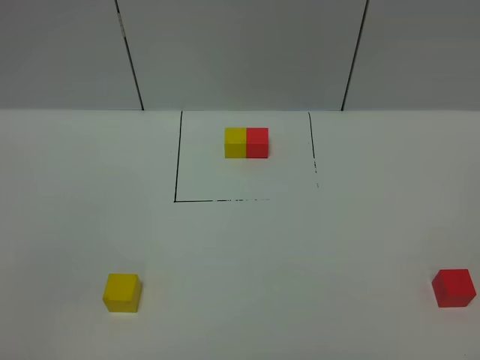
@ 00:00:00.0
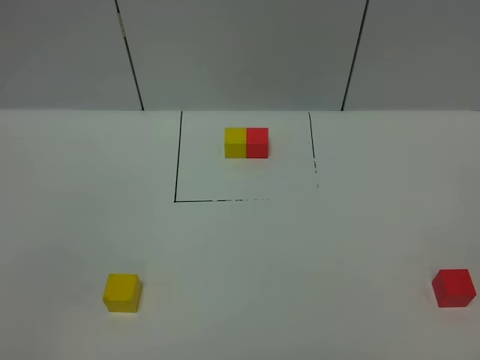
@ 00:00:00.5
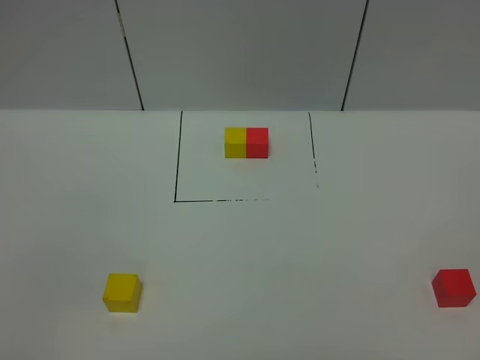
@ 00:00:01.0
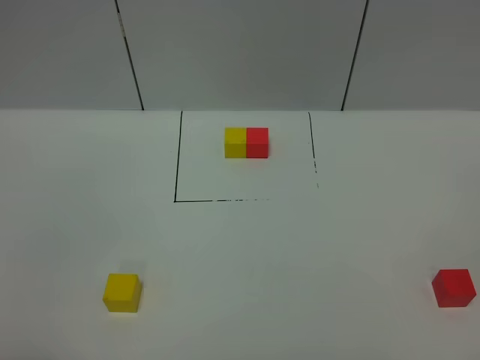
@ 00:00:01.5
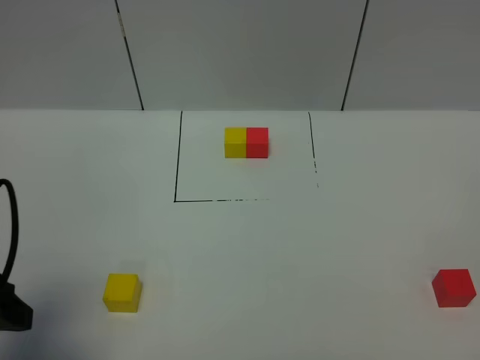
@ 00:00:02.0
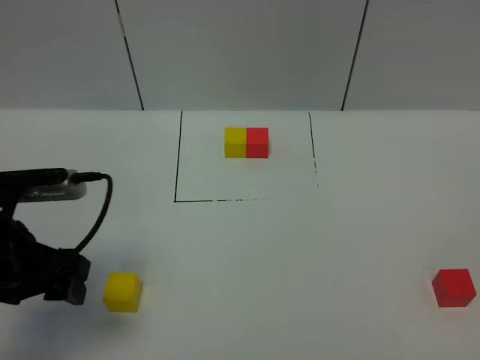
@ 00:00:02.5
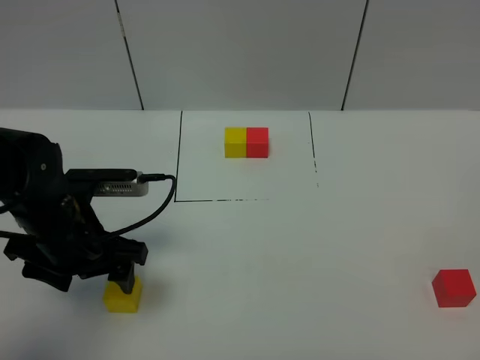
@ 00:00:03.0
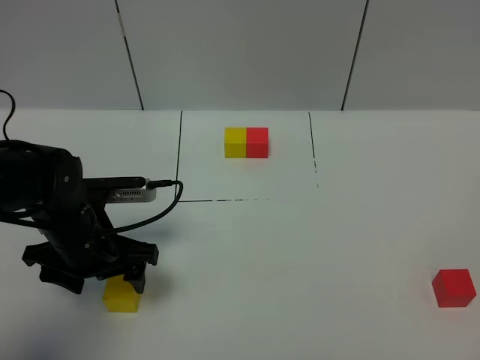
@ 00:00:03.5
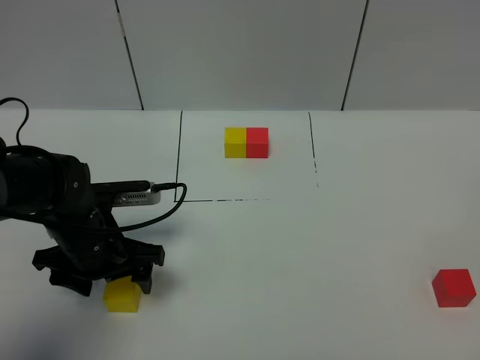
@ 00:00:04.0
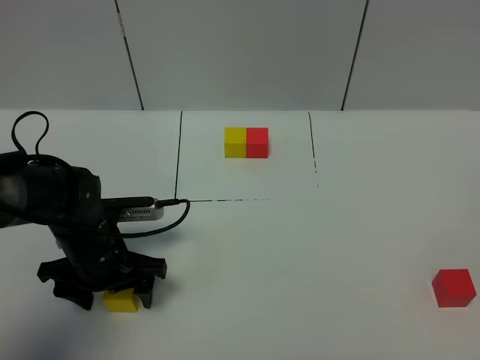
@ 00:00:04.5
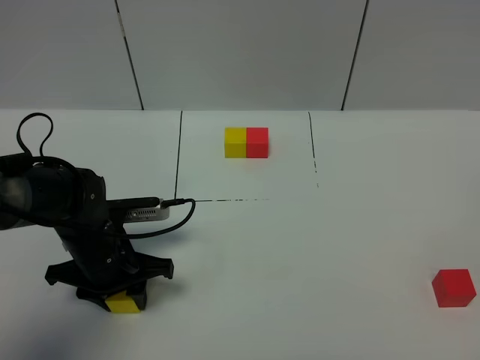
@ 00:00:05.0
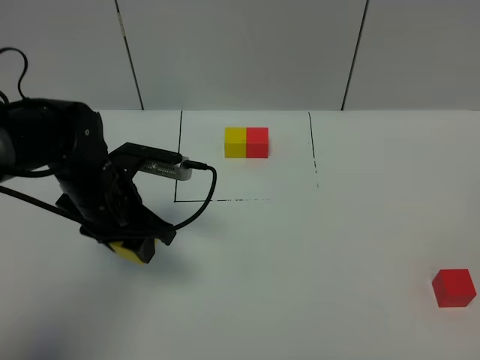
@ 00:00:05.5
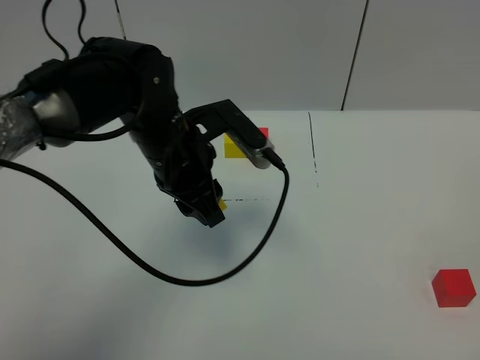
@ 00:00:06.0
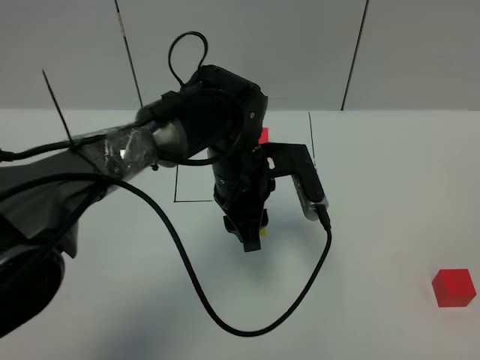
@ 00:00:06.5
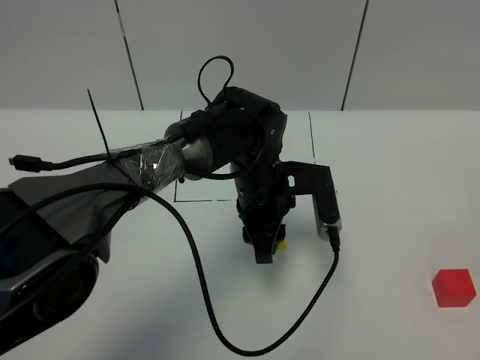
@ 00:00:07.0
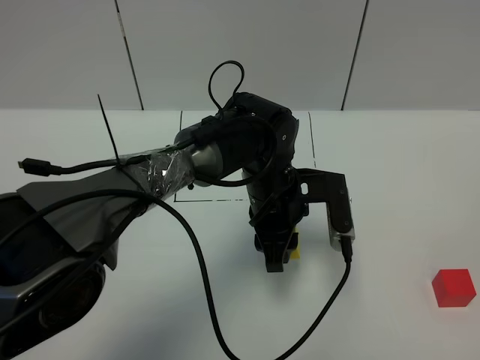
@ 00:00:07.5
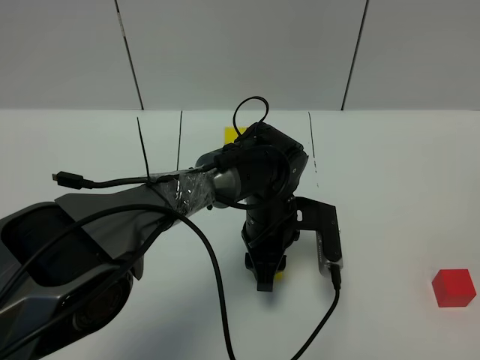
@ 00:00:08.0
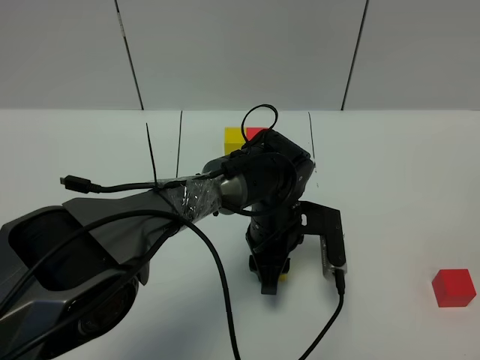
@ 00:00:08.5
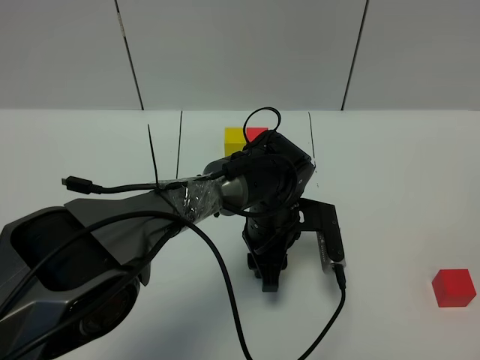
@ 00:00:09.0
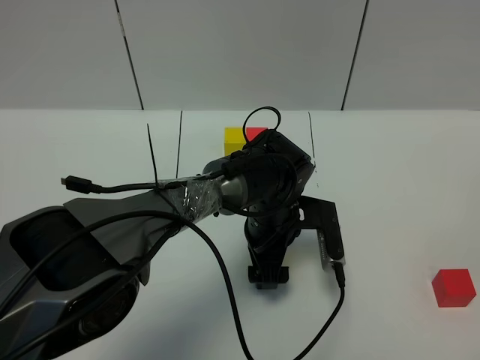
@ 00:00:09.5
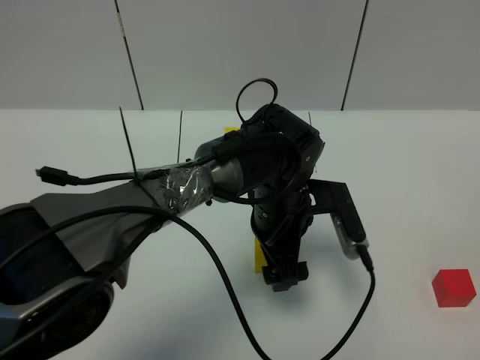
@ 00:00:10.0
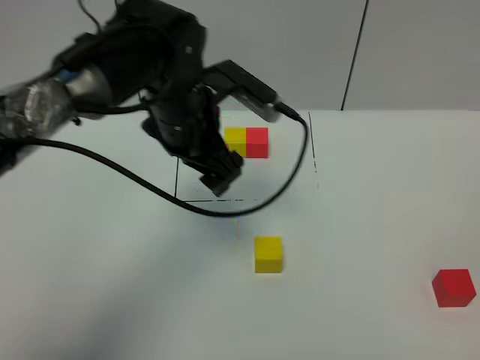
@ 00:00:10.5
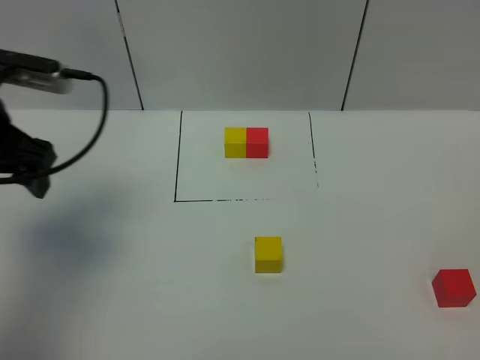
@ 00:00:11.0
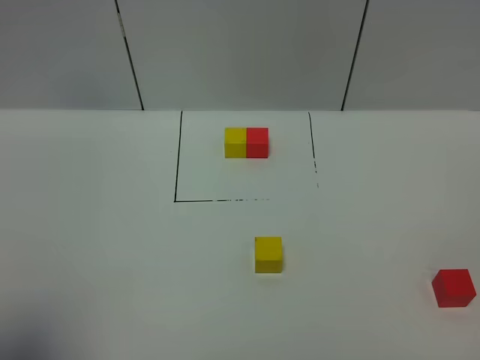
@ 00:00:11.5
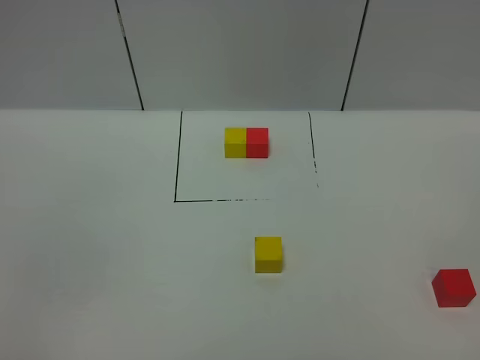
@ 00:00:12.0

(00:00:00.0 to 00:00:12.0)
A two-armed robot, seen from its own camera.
Task of the whole recording: According to the building block template in front, assemble the scattered blocks together.
Step, 00:00:02.0 - 00:00:10.0: Put the yellow cube in the center of the table.
00:00:00.0 - 00:00:02.0: The left gripper shifts some 15 cm forward.
00:00:02.0 - 00:00:04.0: The left gripper goes approximately 20 cm forward, downward and to the right.
00:00:04.0 - 00:00:06.0: The left gripper travels to the right, upward and forward by about 15 cm, and closes its fingers.
00:00:06.0 - 00:00:08.0: The left gripper is displaced downward and to the right by approximately 15 cm.
00:00:08.0 - 00:00:10.0: The left gripper travels upward by roughly 5 cm, and opens.
00:00:10.0 - 00:00:12.0: The left gripper travels backward and to the left by roughly 50 cm.

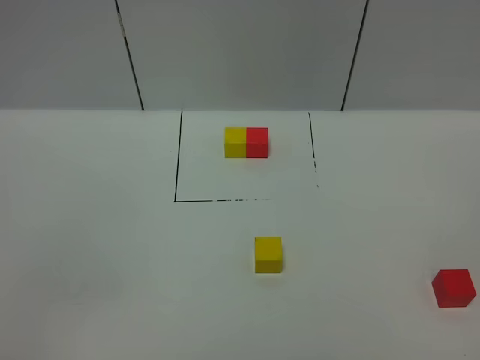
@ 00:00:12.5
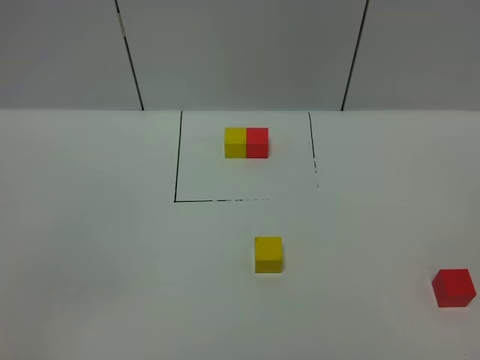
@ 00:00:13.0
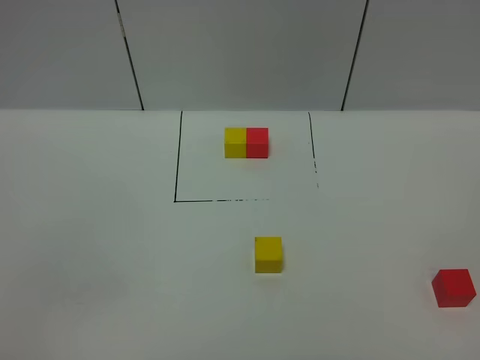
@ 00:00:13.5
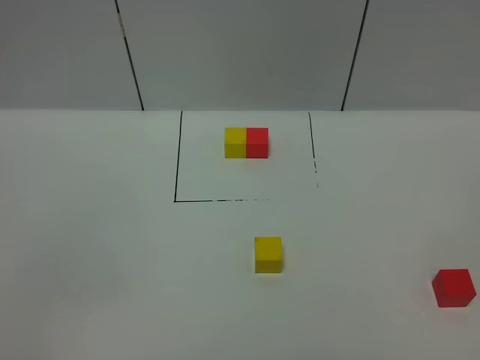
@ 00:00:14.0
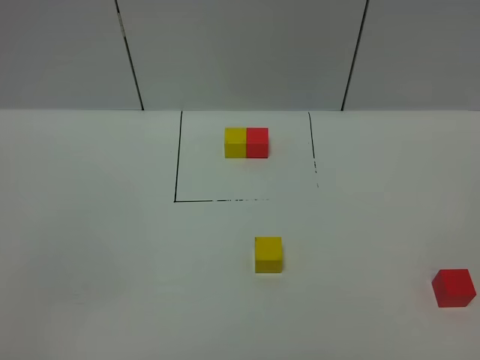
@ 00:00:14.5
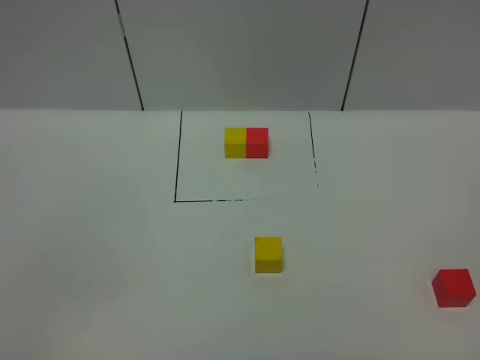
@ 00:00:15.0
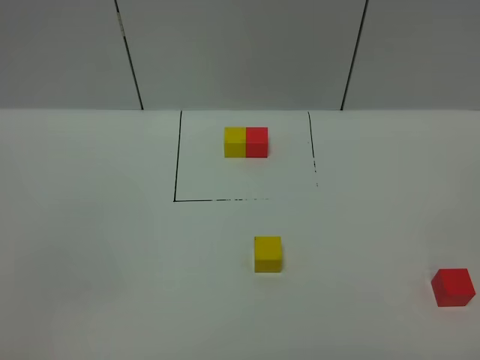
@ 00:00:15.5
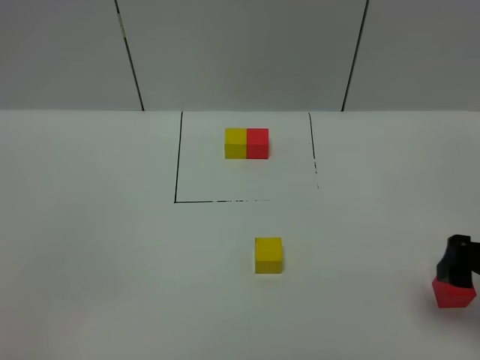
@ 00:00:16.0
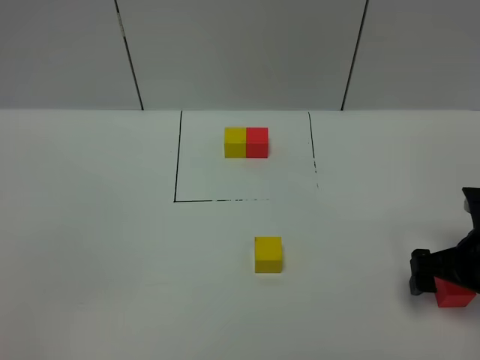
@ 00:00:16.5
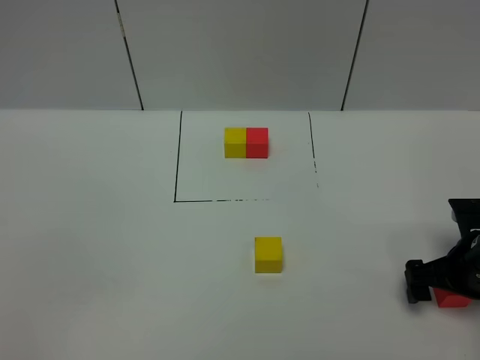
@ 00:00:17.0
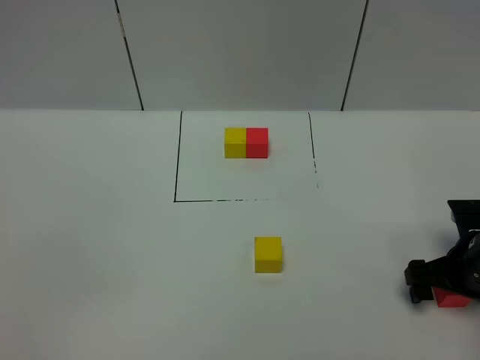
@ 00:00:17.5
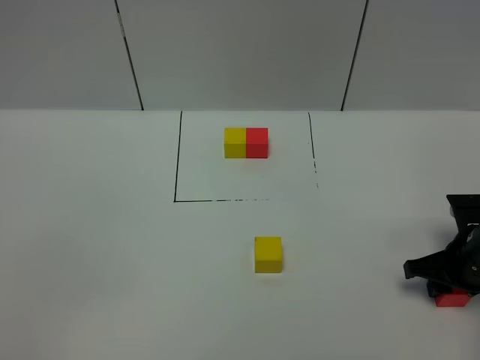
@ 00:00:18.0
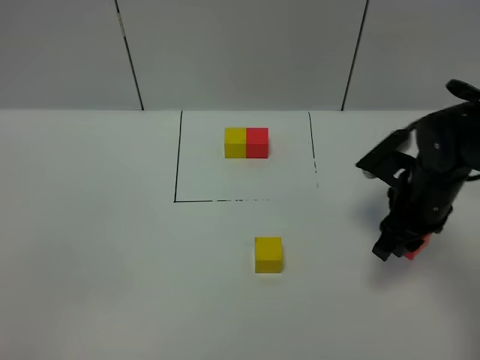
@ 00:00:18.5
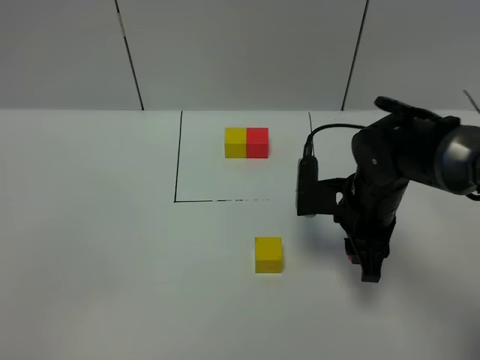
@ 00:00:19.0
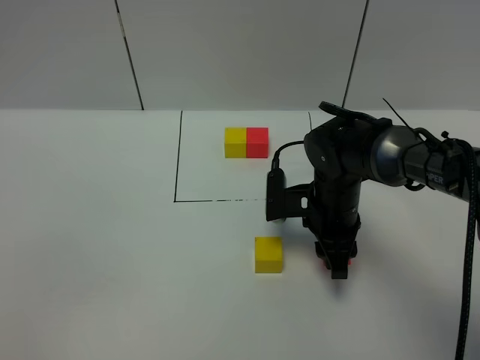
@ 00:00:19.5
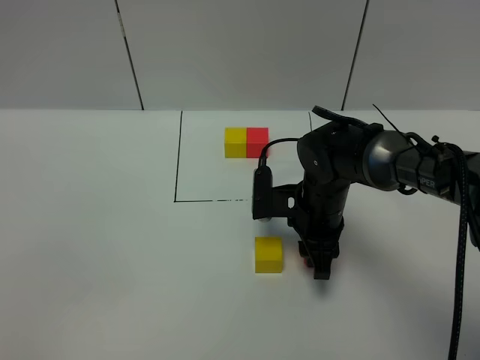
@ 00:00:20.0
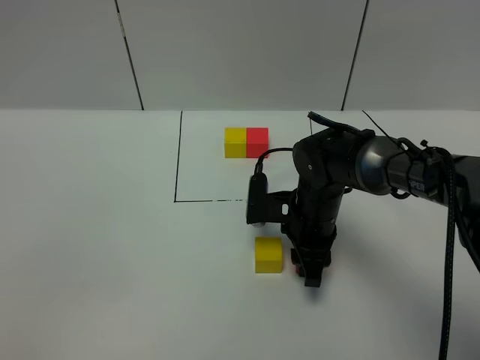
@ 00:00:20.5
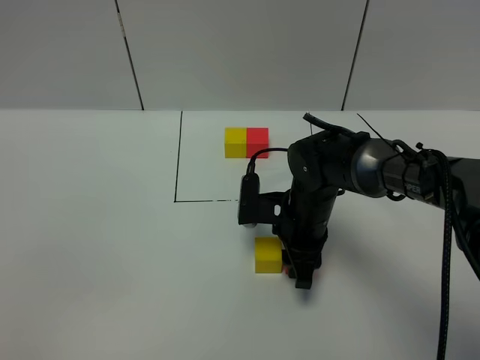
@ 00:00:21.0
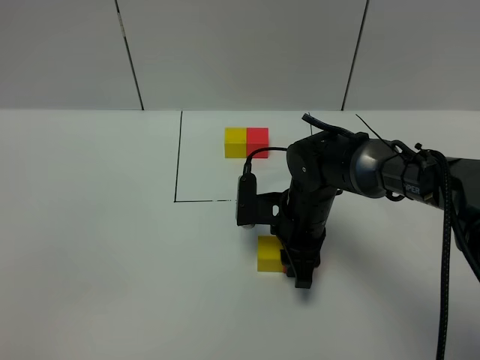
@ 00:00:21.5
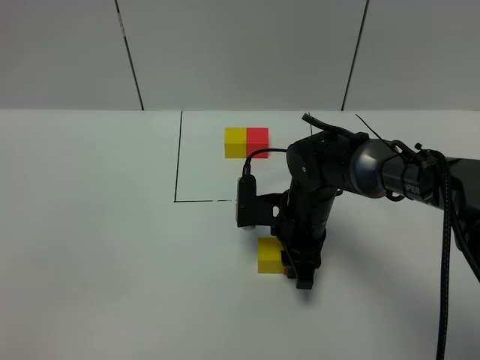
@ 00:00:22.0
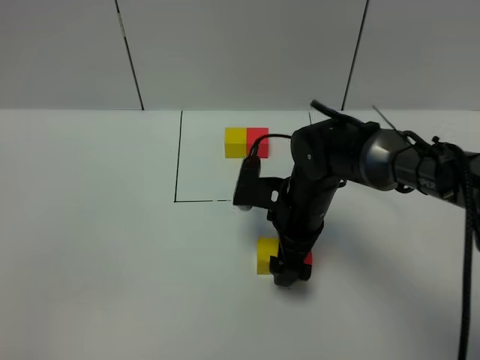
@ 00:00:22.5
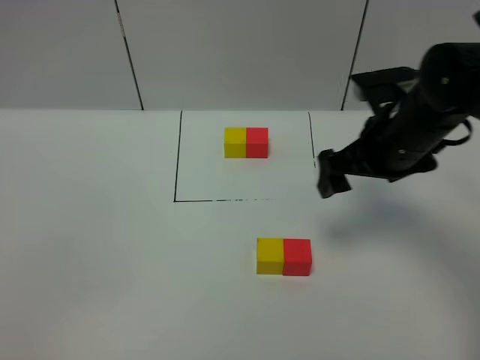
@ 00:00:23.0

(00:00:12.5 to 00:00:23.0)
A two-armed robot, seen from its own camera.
Task of the whole recording: According to the building block template in front, assemble the scattered blocks together.
Step, 00:00:12.5 - 00:00:22.5: Put the red cube on the right of the yellow cube.
00:00:14.5 - 00:00:16.5: The right gripper shifts approximately 30 cm forward and downward.
00:00:16.5 - 00:00:19.0: The right gripper heads to the left and forward, covering roughly 15 cm, and closes up.
00:00:19.0 - 00:00:21.0: The right gripper travels to the left by some 5 cm.
00:00:21.0 - 00:00:23.0: The right gripper moves upward and to the right, roughly 20 cm, and opens.

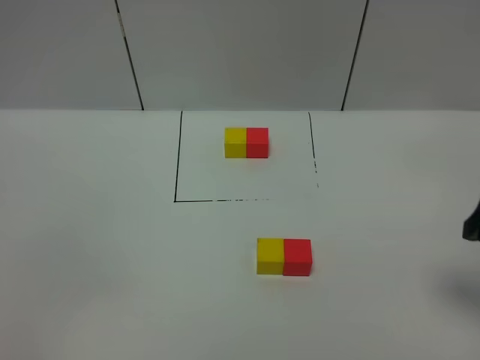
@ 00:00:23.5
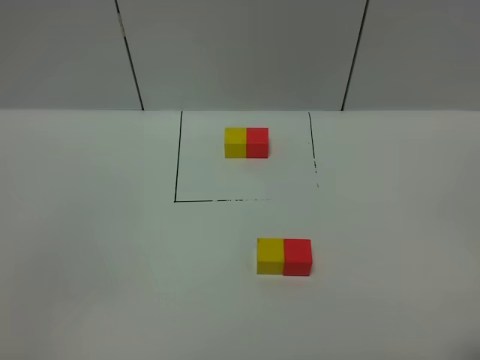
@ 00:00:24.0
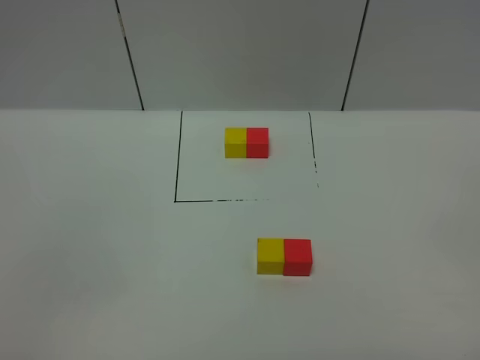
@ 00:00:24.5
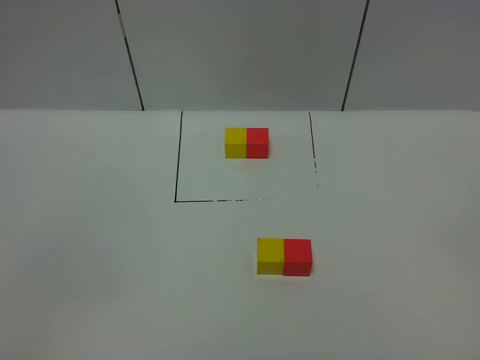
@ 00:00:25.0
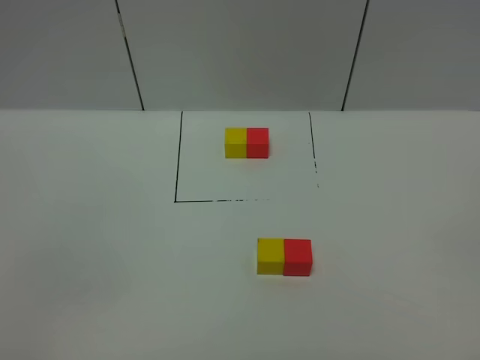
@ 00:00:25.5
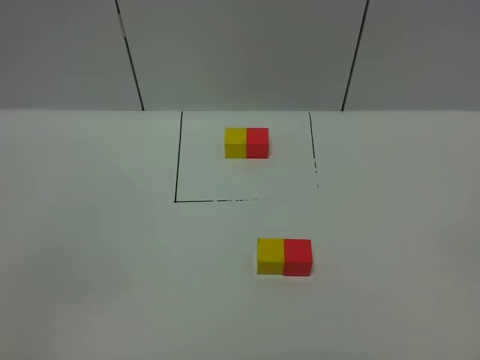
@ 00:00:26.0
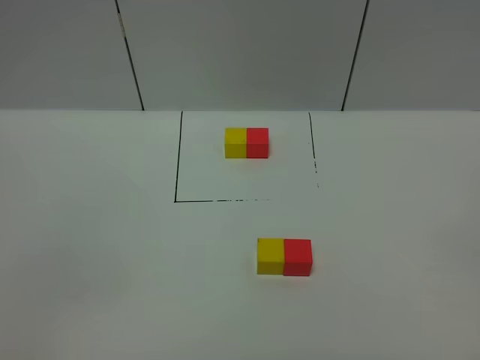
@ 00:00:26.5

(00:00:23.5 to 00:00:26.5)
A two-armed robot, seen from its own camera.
Task of the whole recording: According to the building block template in front, assemble the scattered blocks together.
00:00:23.5 - 00:00:25.0: The right gripper travels backward by roughly 20 cm.
00:00:25.0 - 00:00:26.5: Both grippers stay about where they are.
